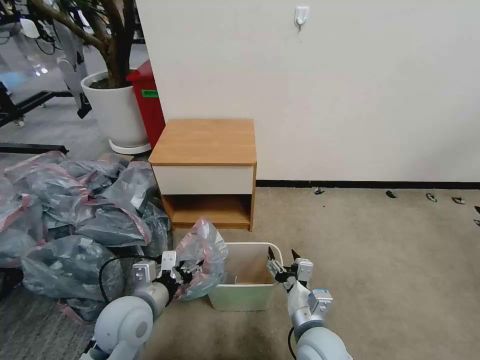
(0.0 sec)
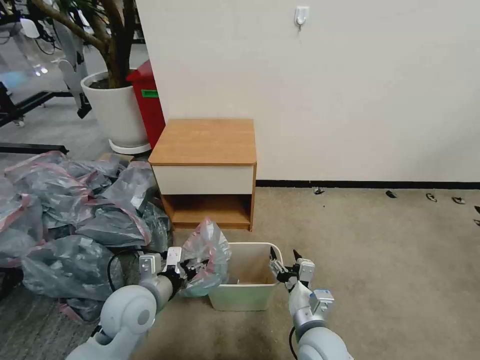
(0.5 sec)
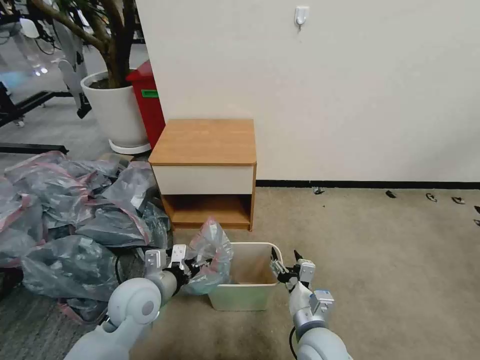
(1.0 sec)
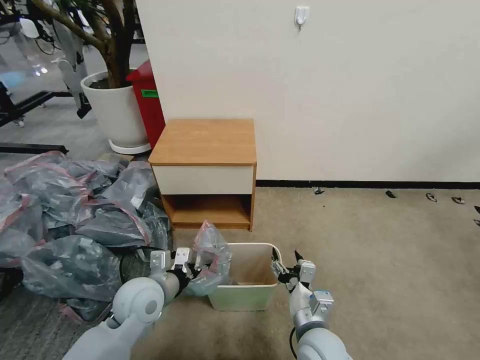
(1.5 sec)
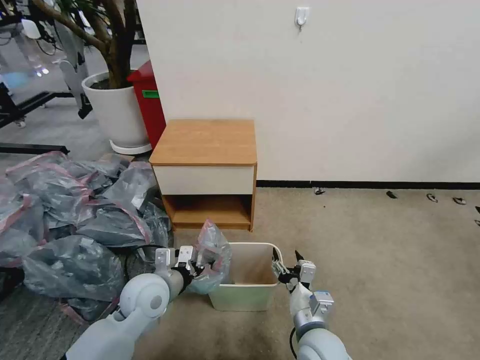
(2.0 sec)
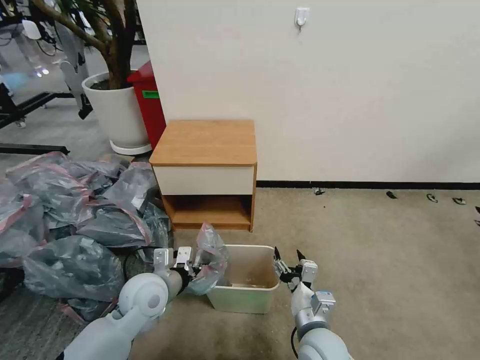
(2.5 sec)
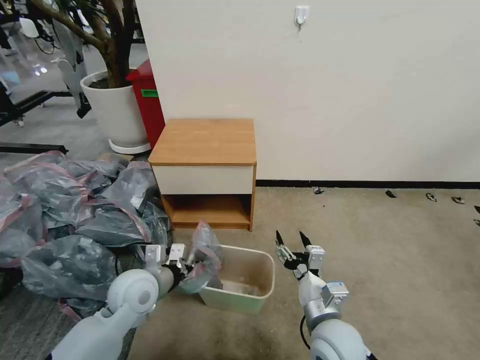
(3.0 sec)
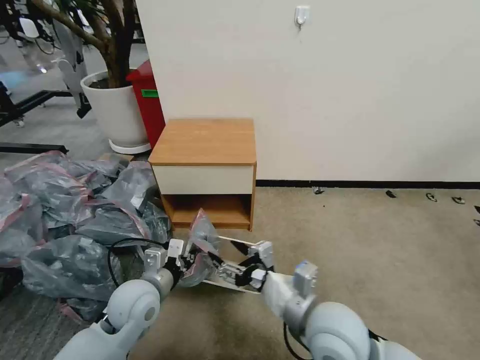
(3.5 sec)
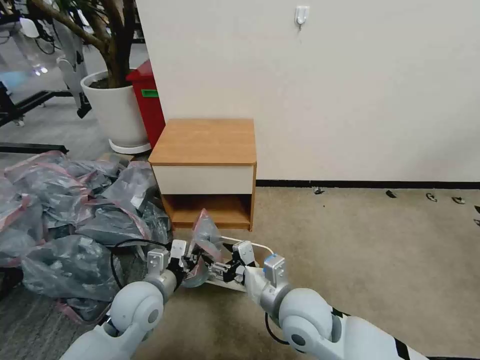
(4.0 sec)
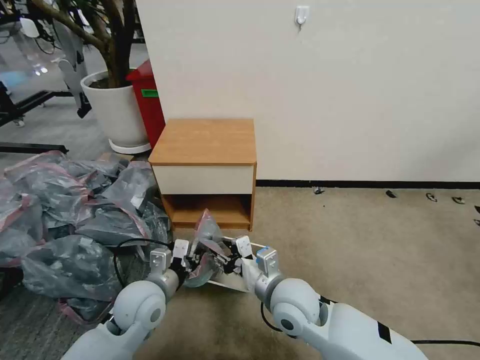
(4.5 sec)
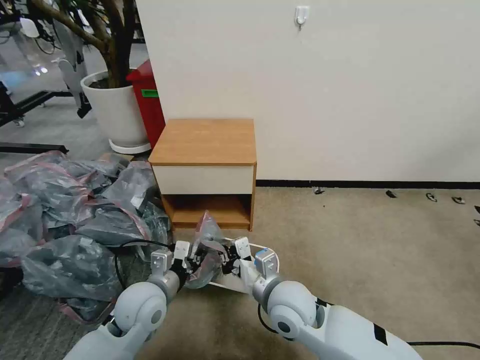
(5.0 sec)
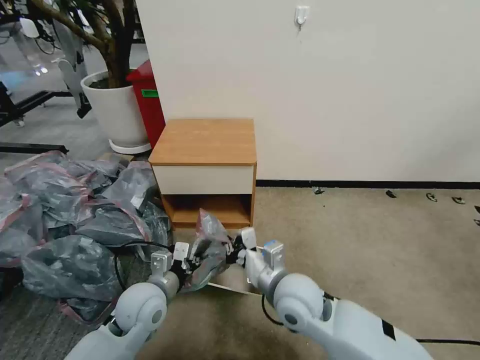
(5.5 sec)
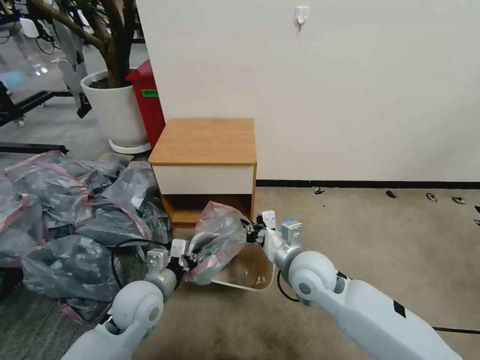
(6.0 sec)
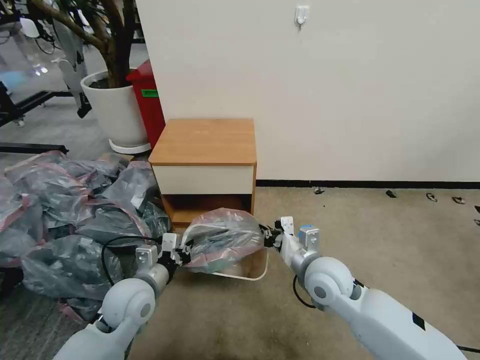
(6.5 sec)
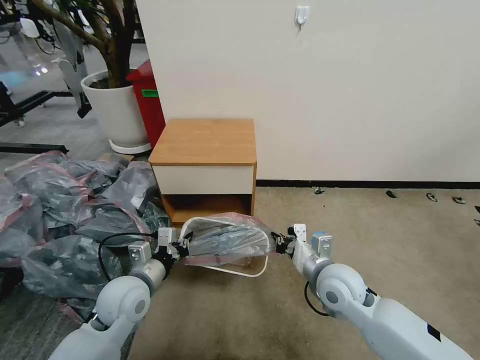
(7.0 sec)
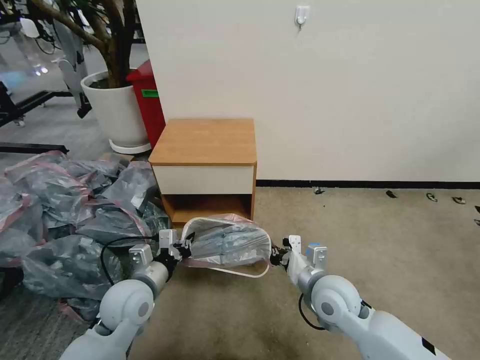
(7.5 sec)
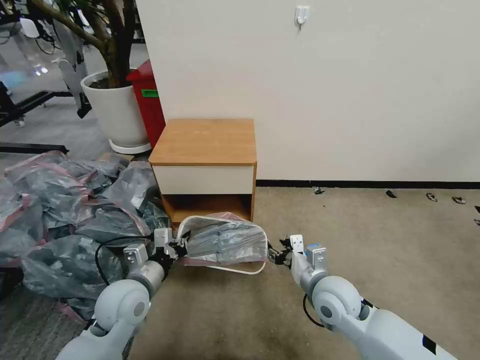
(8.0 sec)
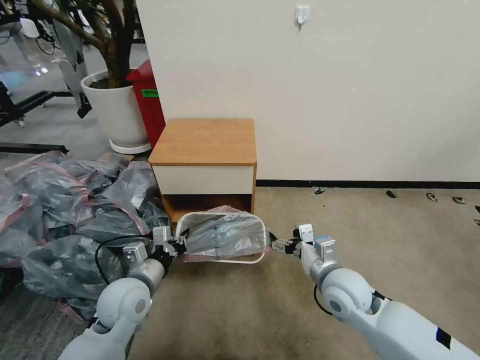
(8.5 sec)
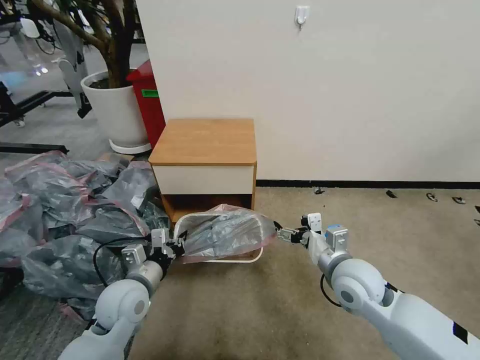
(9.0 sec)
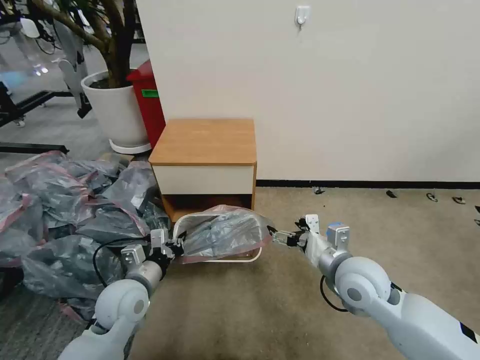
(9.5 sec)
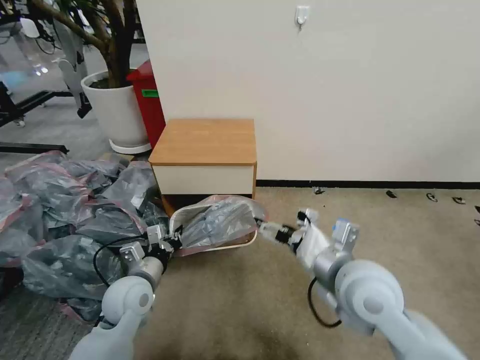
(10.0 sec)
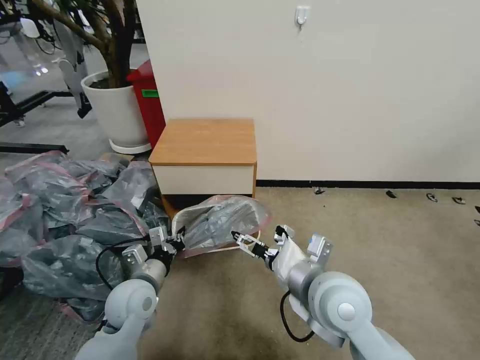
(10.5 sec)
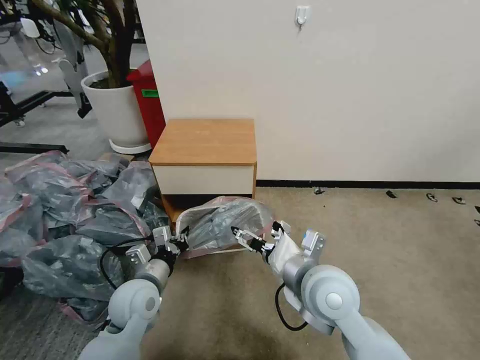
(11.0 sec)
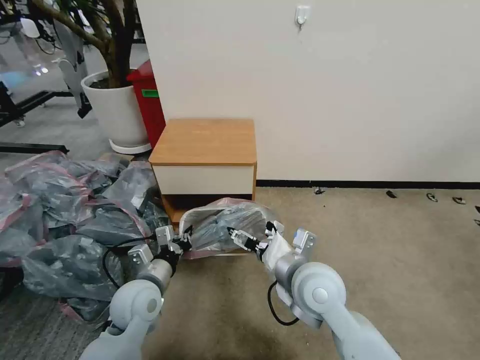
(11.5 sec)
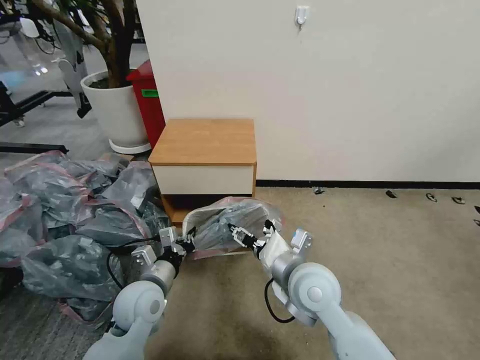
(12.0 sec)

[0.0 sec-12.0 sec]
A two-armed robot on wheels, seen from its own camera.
Task of the whole recording: Pick up the garbage bag from the table and place it over the trash can.
0.0 sec to 2.0 sec: The left gripper heads forward, covering some 5 cm.
2.0 sec to 4.0 sec: The left gripper closes up. Meanwhile the right gripper heads upward, covering approximately 10 cm.
4.0 sec to 6.0 sec: The right gripper goes about 10 cm forward, and closes its fingers.
6.0 sec to 8.0 sec: The right gripper is displaced to the right and downward by approximately 10 cm, and opens.
8.0 sec to 10.0 sec: The right gripper travels upward by some 15 cm, and opens up.
10.0 sec to 12.0 sec: The right gripper shifts approximately 10 cm to the left and downward, and closes its fingers.

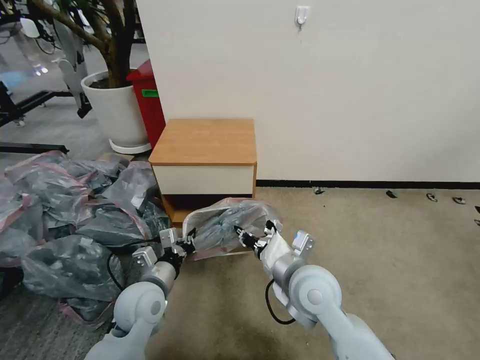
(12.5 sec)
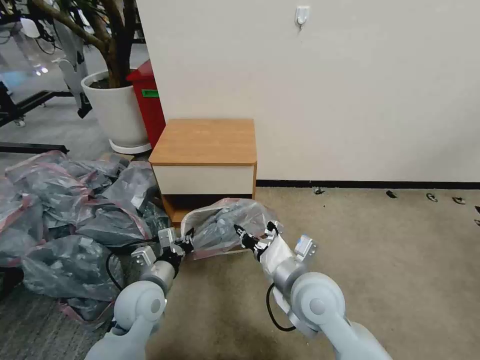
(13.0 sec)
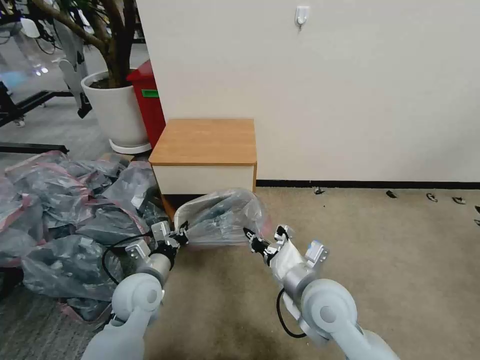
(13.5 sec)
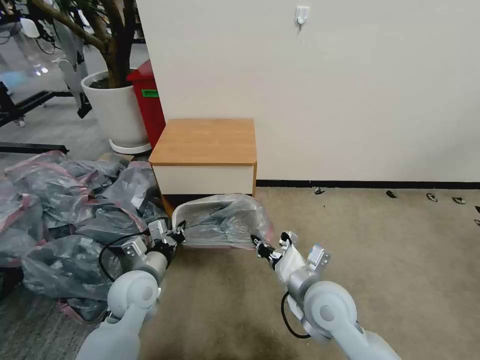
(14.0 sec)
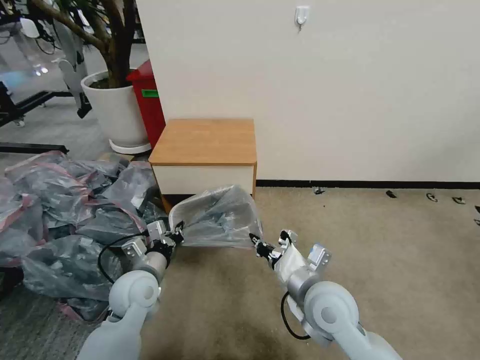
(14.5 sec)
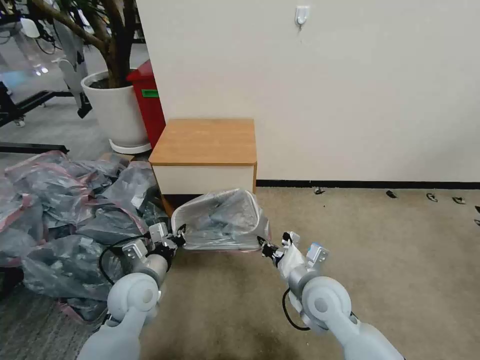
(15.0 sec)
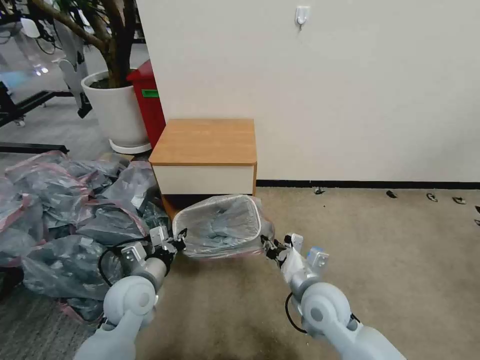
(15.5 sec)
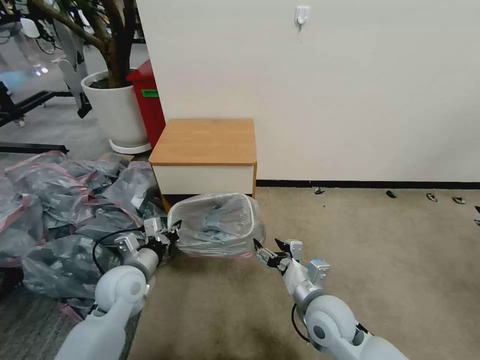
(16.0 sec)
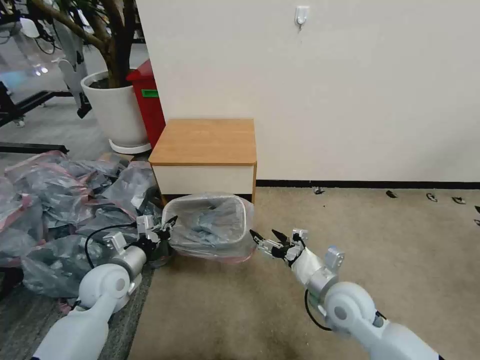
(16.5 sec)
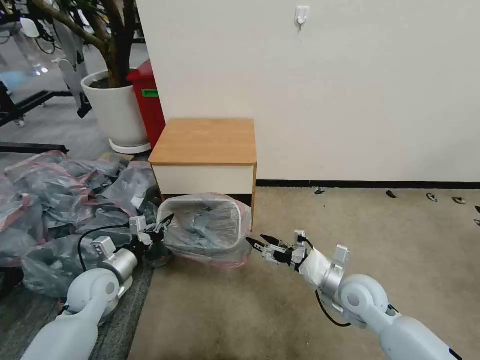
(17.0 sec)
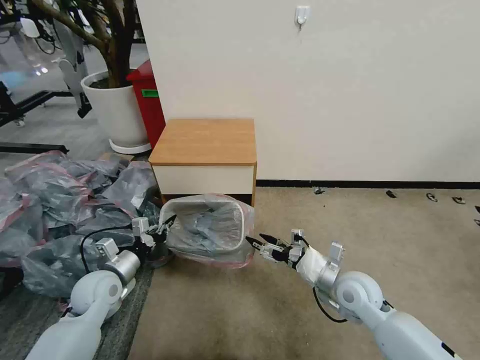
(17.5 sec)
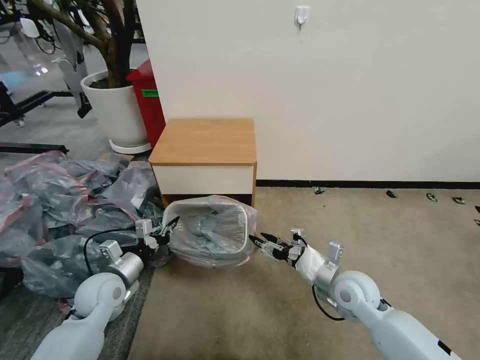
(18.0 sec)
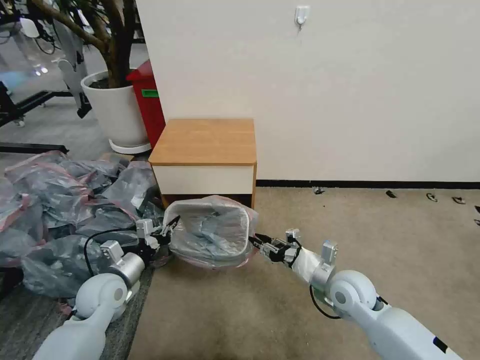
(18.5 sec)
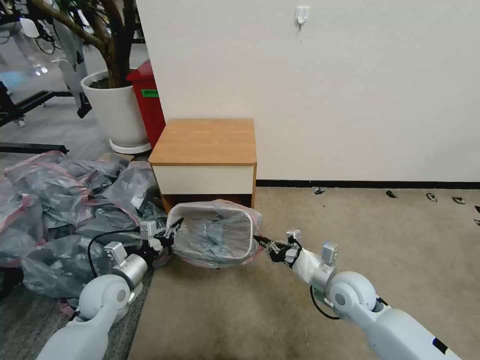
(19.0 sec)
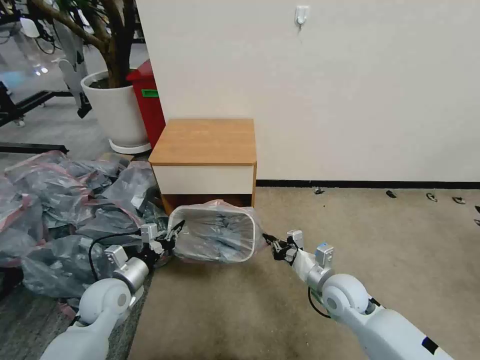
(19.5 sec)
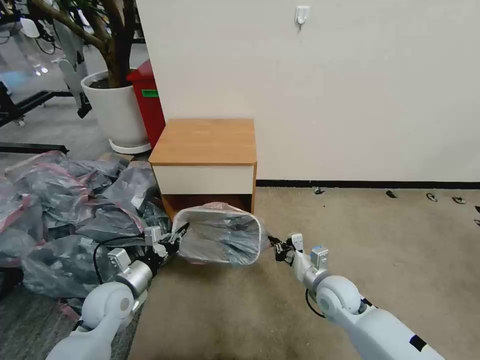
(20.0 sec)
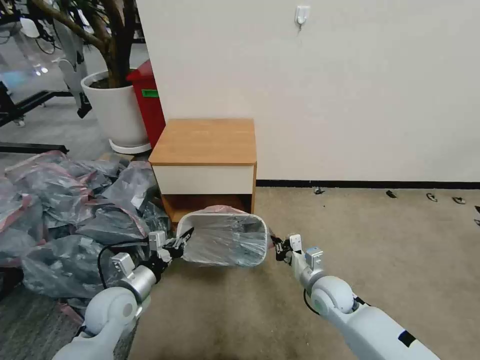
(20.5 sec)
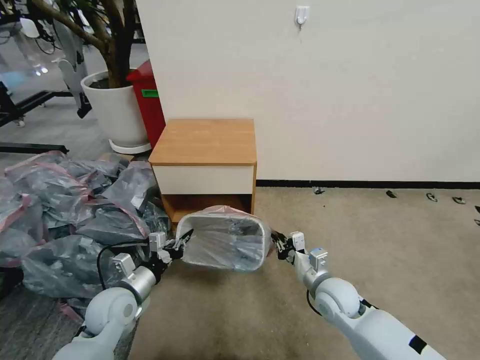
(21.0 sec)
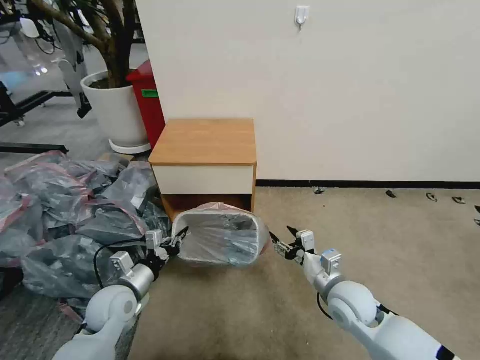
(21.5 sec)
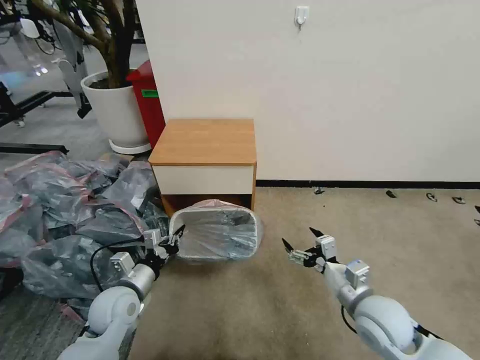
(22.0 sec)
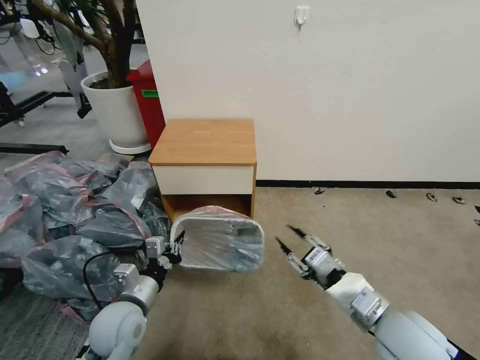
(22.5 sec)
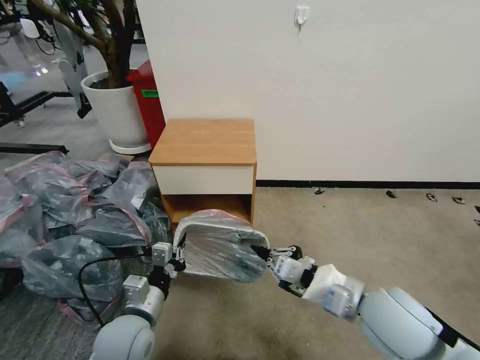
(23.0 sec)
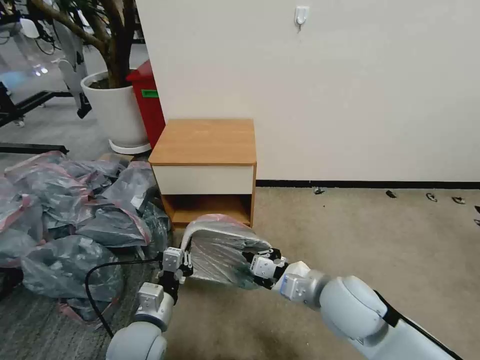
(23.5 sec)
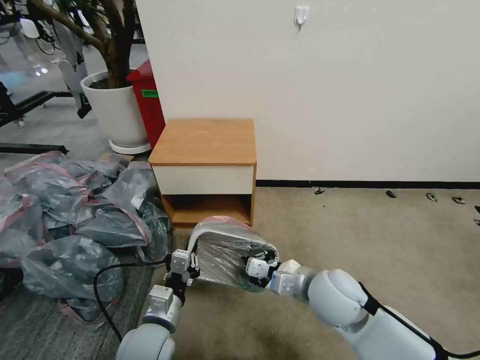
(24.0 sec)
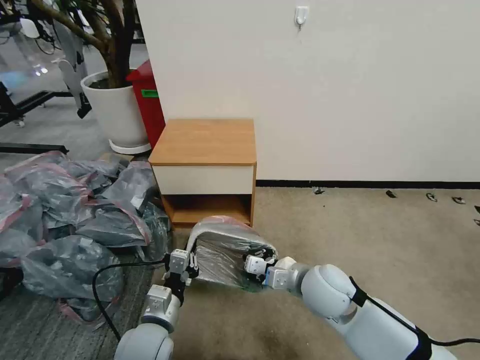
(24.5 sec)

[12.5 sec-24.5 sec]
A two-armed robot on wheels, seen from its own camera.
Task of the whole recording: Pick up the garbage bag from the table and place it over the trash can.
12.5 sec to 14.5 sec: The grippers move only a little.
14.5 sec to 16.5 sec: The left gripper travels to the left by roughly 10 cm; the right gripper moves to the right and downward, about 10 cm, and opens its fingers.
16.5 sec to 18.5 sec: The right gripper shifts by roughly 5 cm, and closes up.
18.5 sec to 20.5 sec: The right gripper heads downward, covering roughly 5 cm, and closes.
20.5 sec to 22.5 sec: The right gripper travels upward and backward by about 20 cm, and opens its fingers. The left gripper shifts by approximately 5 cm.
22.5 sec to 24.5 sec: The right gripper is displaced to the left and forward by some 15 cm, and closes its fingers, while the left gripper heads to the right, covering approximately 5 cm.

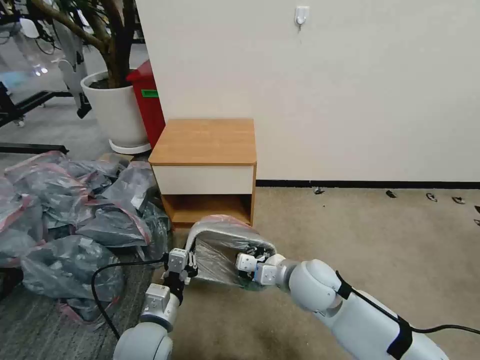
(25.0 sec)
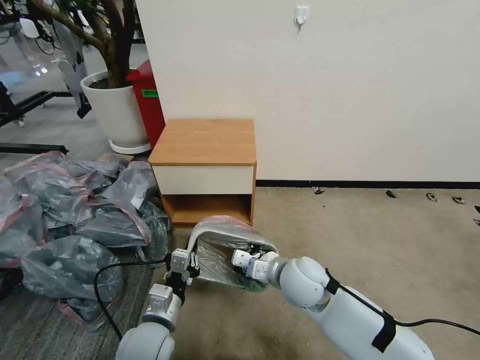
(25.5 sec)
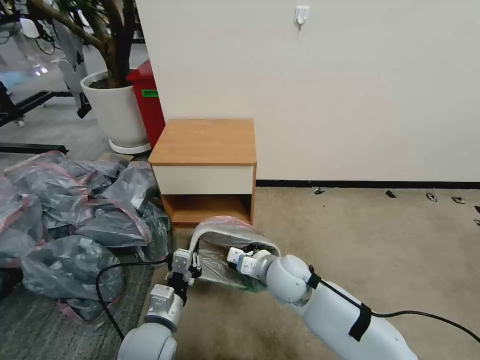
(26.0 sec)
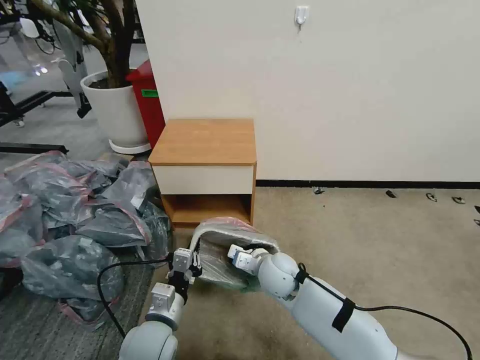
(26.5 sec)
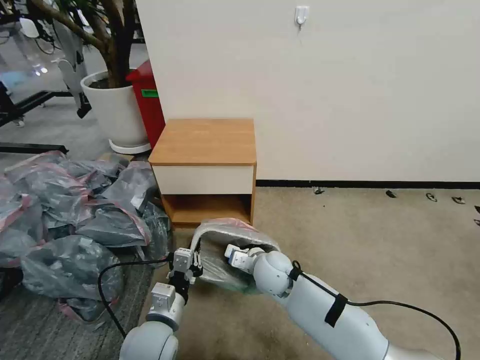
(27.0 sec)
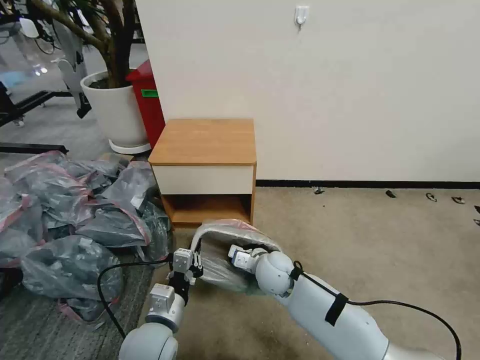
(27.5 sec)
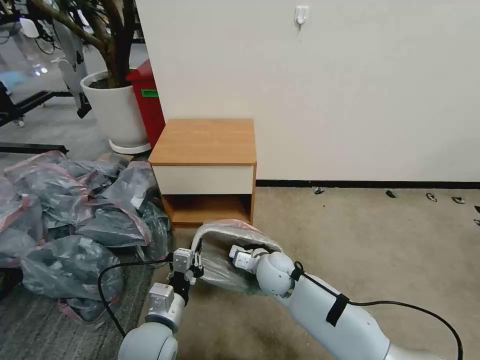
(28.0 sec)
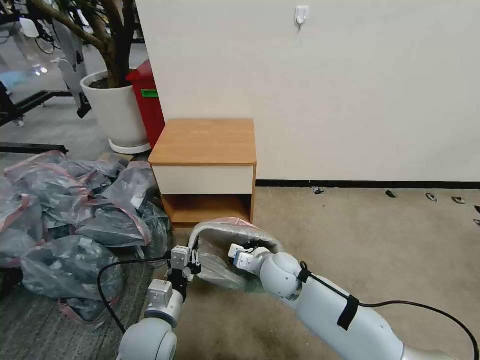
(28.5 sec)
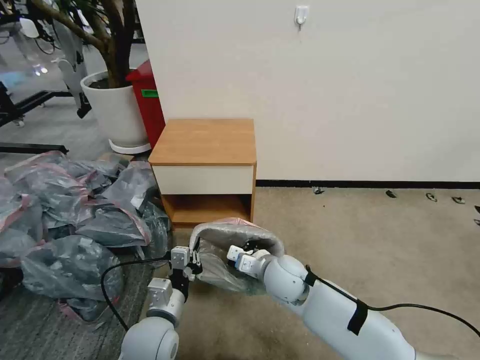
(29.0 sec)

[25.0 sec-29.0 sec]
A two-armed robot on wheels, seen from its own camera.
Task of the whole recording: Pick up the garbage bag from the table and place it over the trash can.
25.0 sec to 27.0 sec: The right gripper goes roughly 10 cm to the left, downward and forward.
27.0 sec to 29.0 sec: The grippers move only a little.
